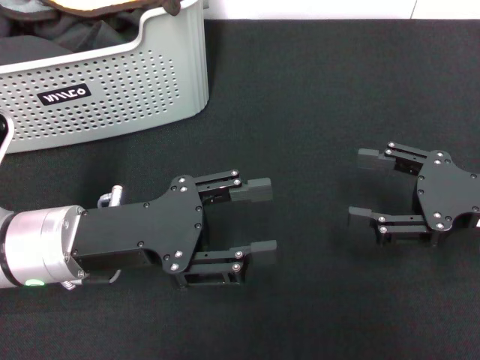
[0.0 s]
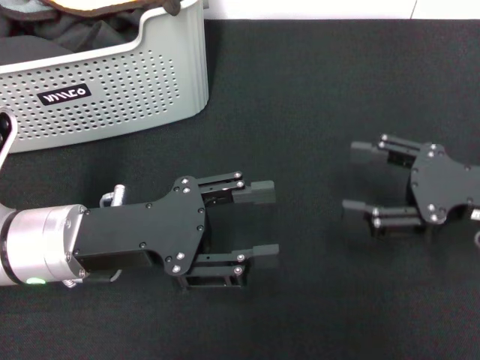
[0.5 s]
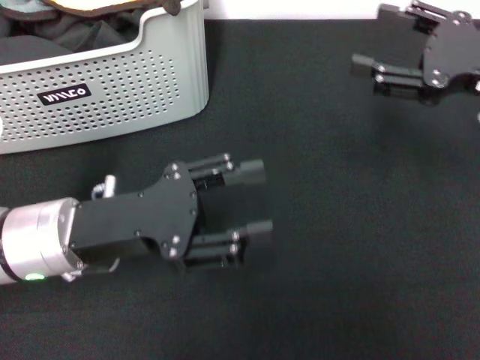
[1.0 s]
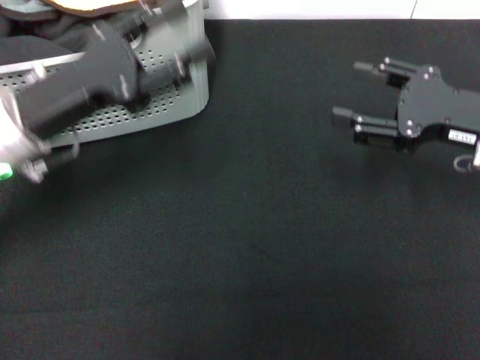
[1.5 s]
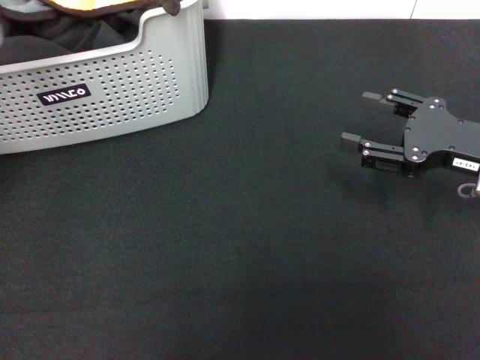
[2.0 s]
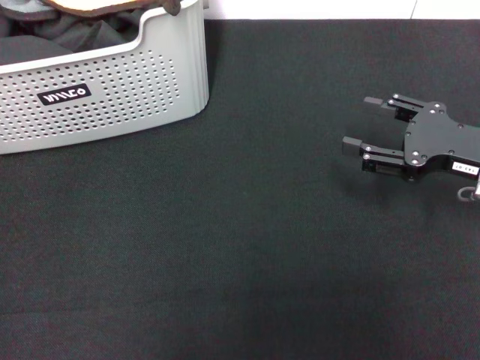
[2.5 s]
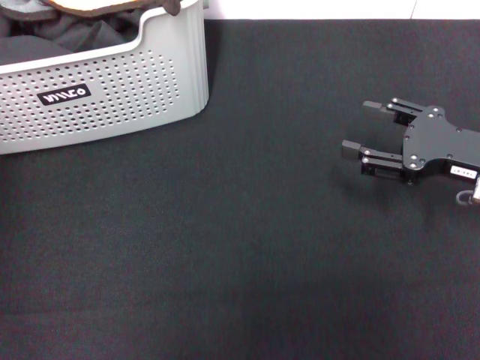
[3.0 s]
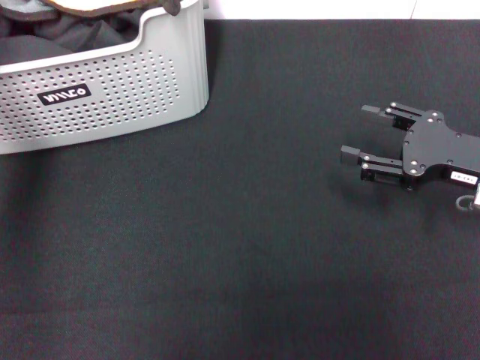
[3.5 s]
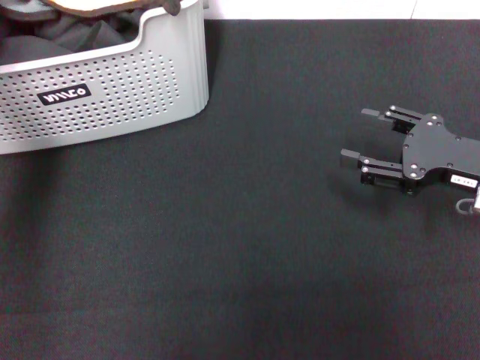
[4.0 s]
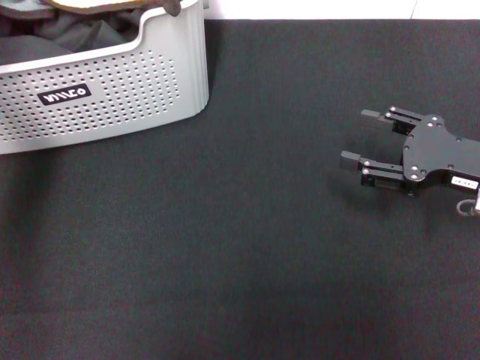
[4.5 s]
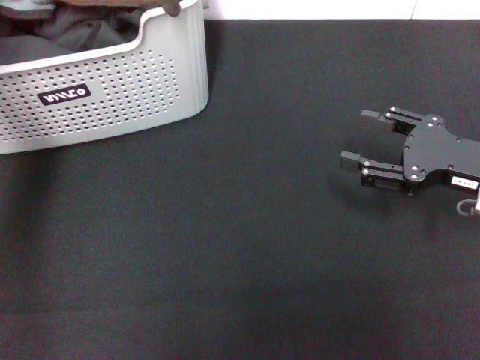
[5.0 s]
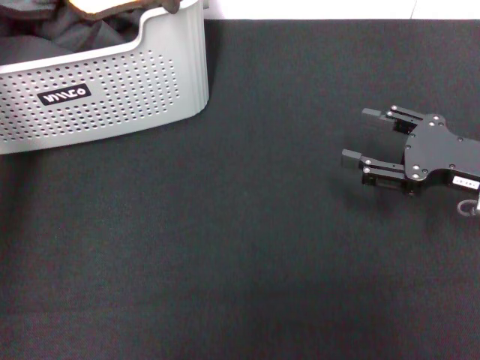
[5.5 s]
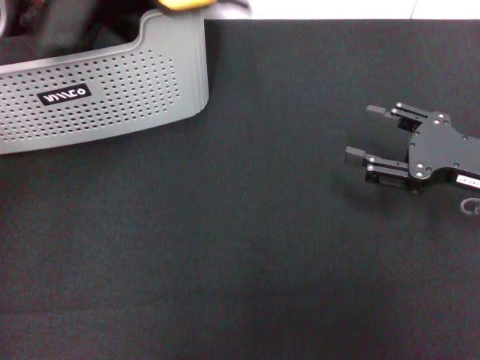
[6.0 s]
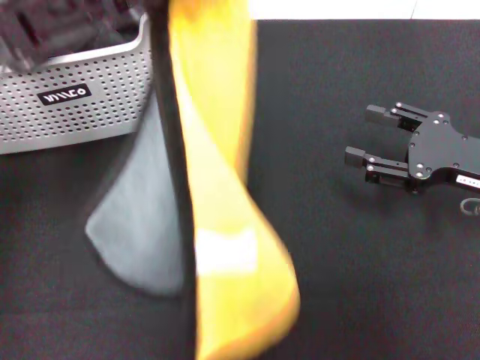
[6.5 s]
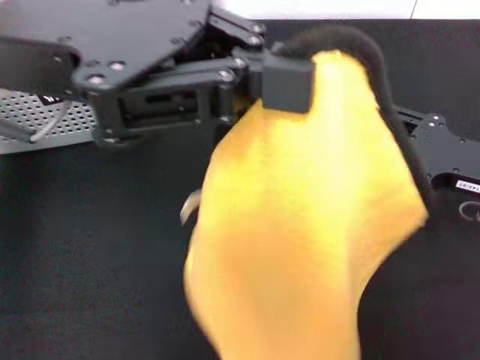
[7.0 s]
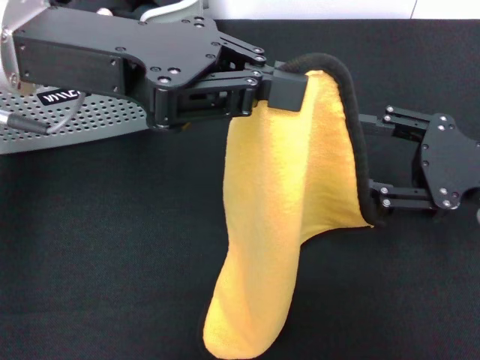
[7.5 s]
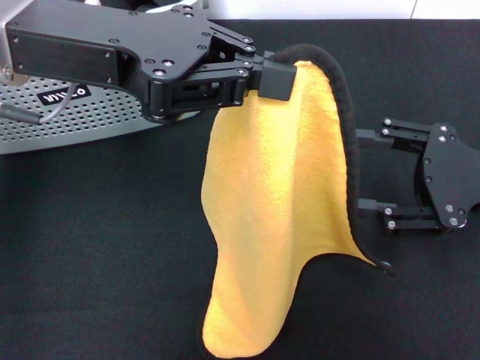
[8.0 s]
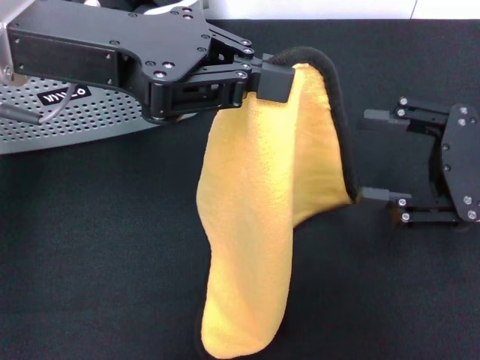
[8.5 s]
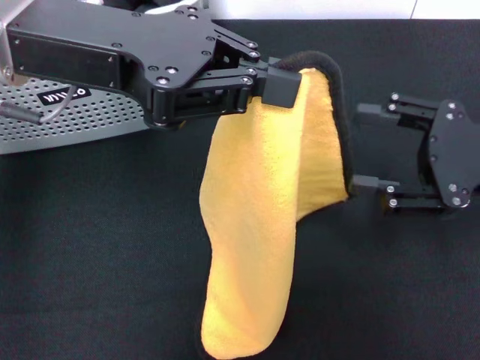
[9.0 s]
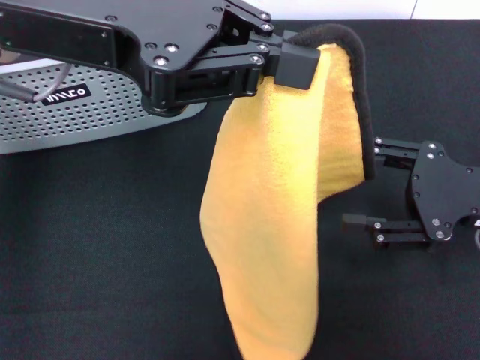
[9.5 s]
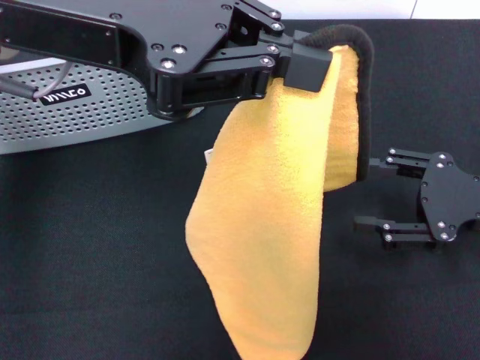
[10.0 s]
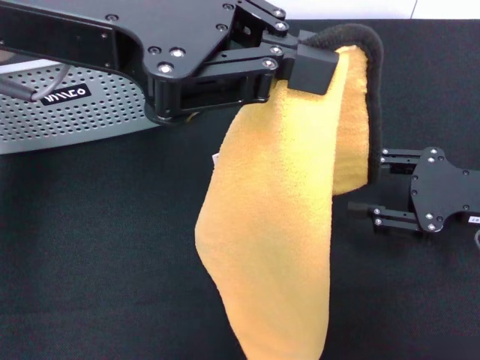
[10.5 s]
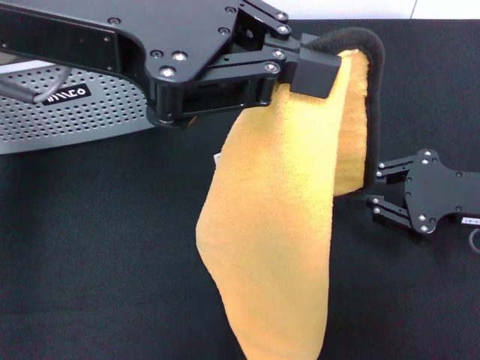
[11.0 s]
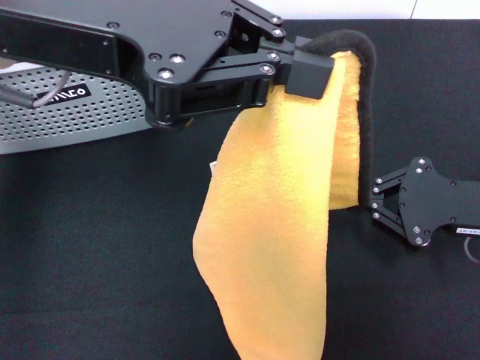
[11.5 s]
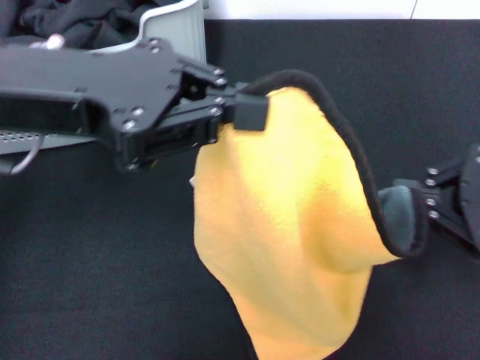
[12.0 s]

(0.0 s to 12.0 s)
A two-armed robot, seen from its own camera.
Task of the whole recording: pick up the towel from the storage box and lay it flat on the black tablecloth.
Step, 0.0 s - 4.5 s: Pick up a towel with the left gripper.
Step, 5.5 s - 11.5 s: Spread the towel flat with the left gripper.
0.0 s - 2.0 s: The left gripper goes approximately 15 cm upward, forward and to the left.
2.0 s - 4.0 s: The left gripper moves forward, about 5 cm.
4.0 s - 6.0 s: The left gripper heads backward, covering about 10 cm, and closes its fingers.
6.0 s - 8.0 s: The left gripper travels to the right by roughly 5 cm.
10.0 s - 12.0 s: The left gripper changes place by some 5 cm. Meanwhile the right gripper closes up.

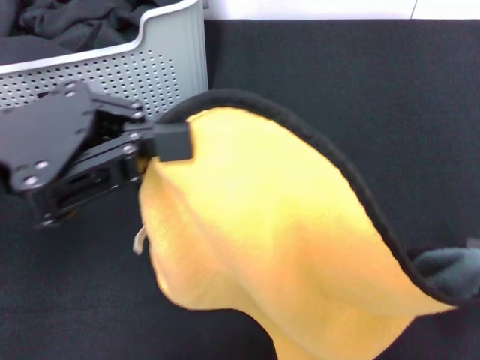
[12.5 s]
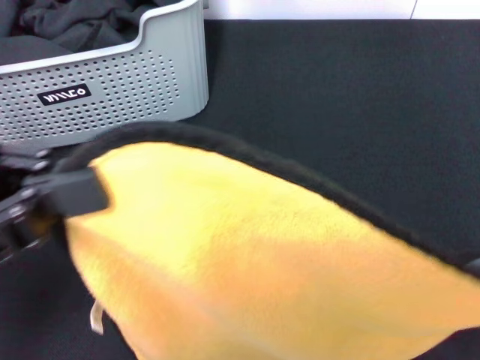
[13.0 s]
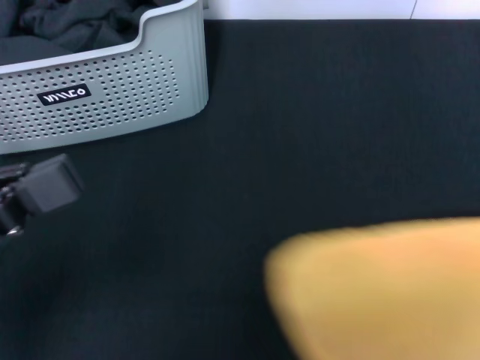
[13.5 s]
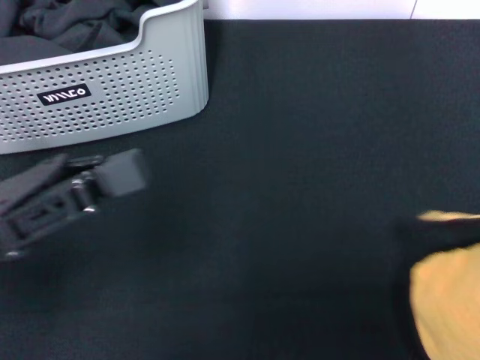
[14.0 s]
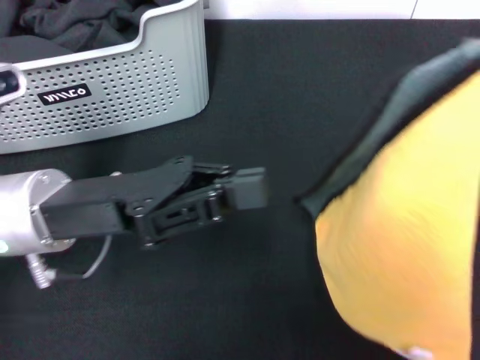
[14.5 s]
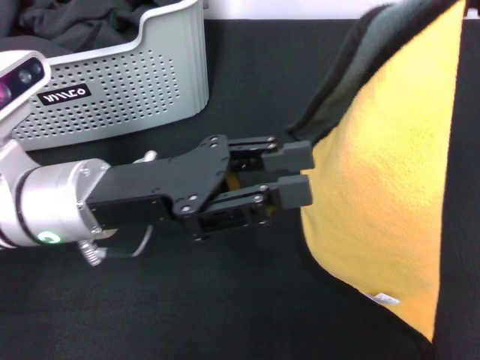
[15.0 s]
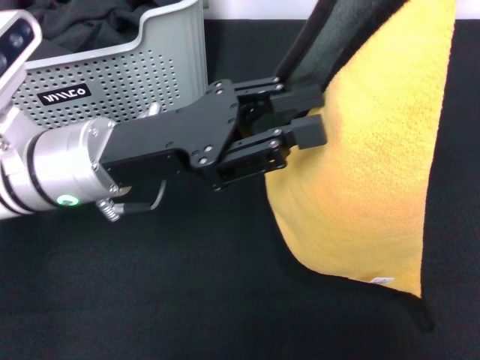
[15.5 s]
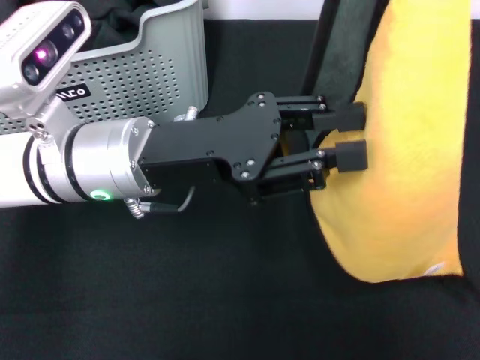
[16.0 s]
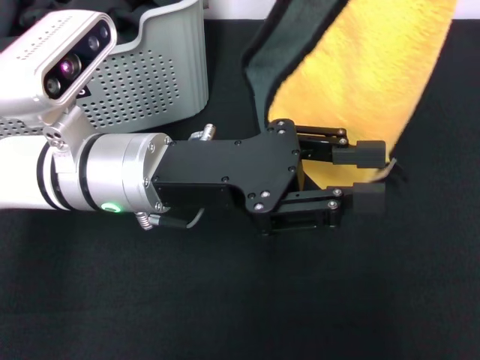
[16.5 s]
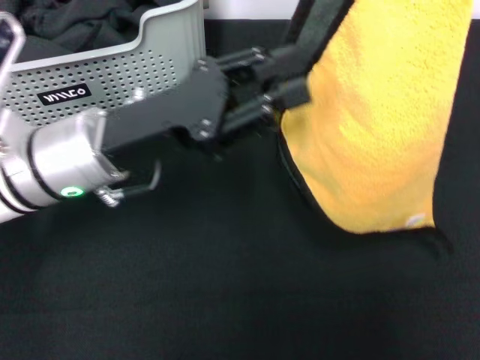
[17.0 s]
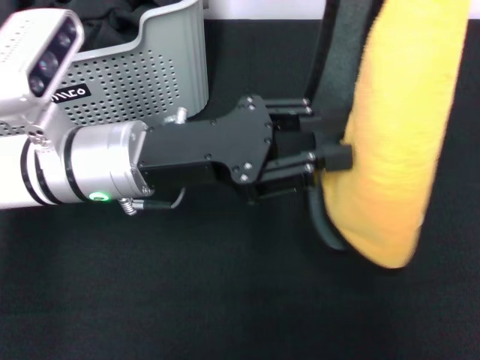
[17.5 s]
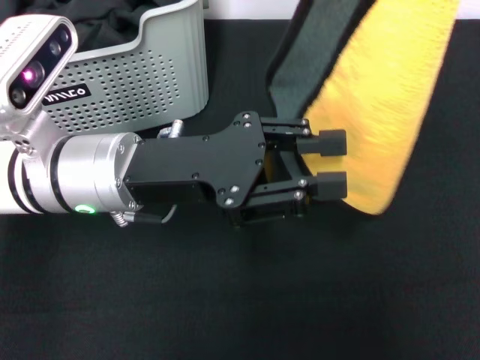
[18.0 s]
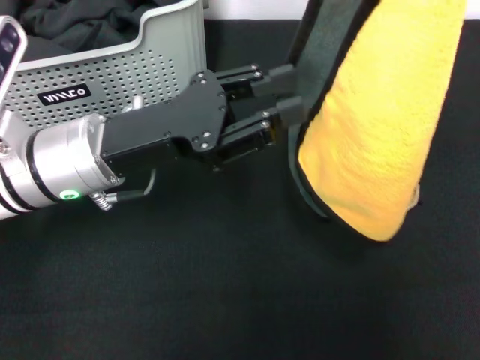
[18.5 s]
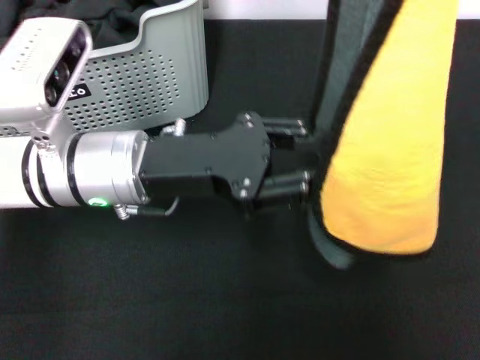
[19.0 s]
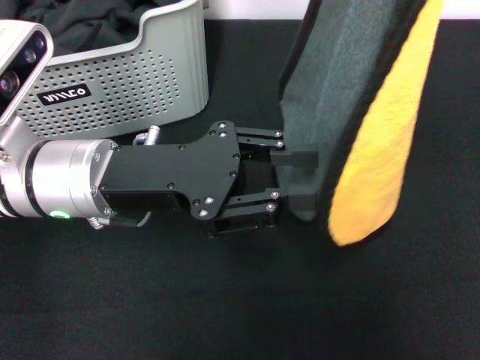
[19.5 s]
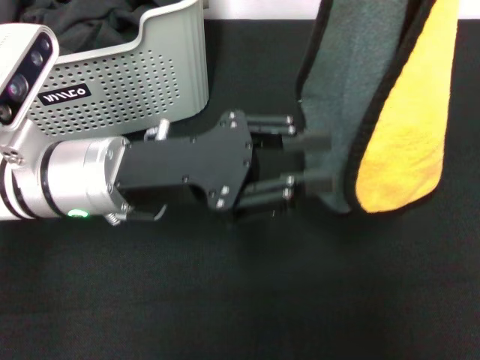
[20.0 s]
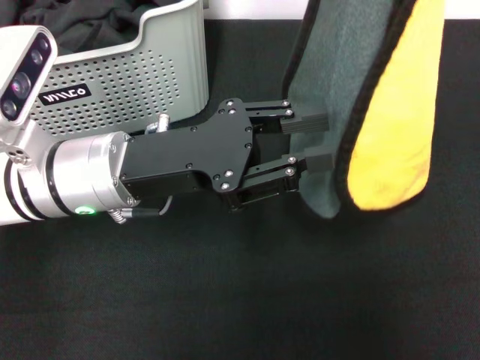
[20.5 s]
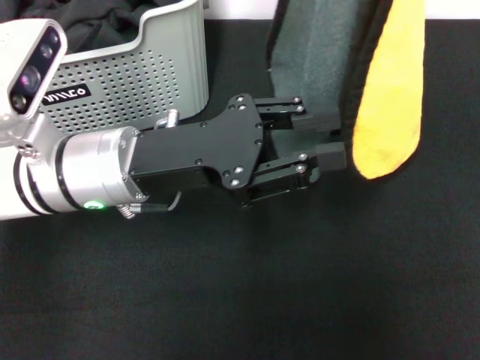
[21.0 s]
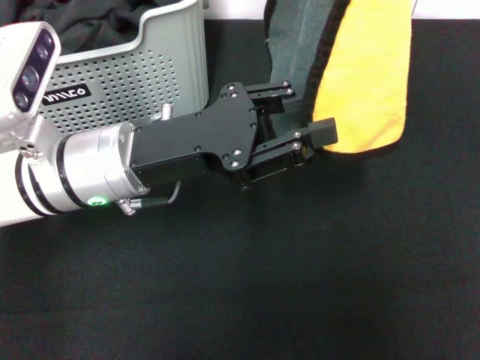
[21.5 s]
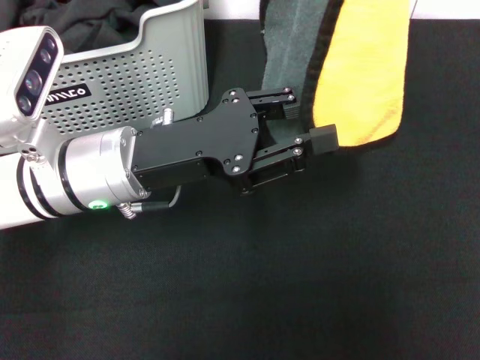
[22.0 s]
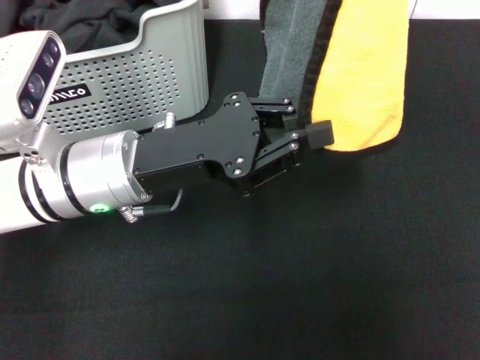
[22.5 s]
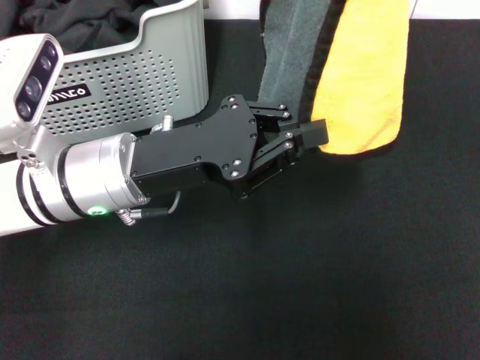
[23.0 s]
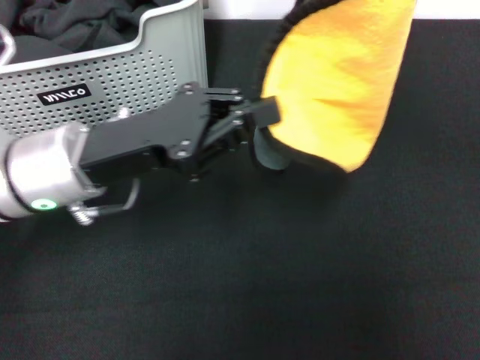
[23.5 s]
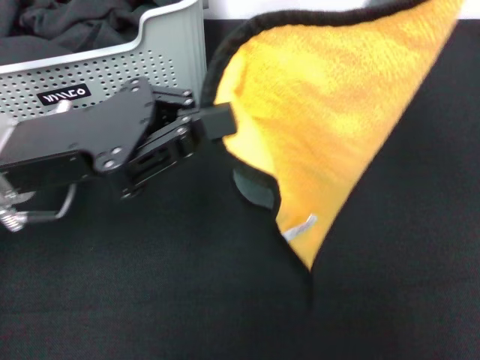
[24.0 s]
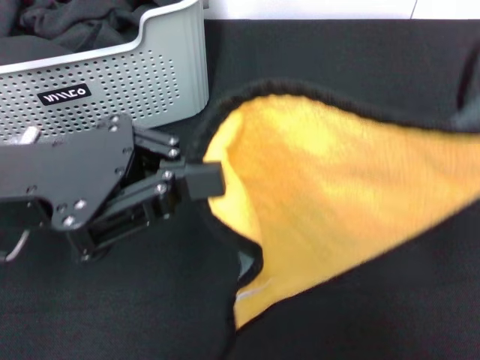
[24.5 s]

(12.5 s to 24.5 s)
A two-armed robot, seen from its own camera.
Task of the whole recording: pick up the towel from the storage box and lay it flat on the black tablecloth.
12.5 s - 14.5 s: The right gripper moves forward and upward, roughly 15 cm. The left gripper goes approximately 10 cm downward.
14.5 s - 16.5 s: The left gripper moves to the right, approximately 5 cm, and opens up. The right gripper travels upward by roughly 10 cm.
22.5 s - 24.5 s: The right gripper goes approximately 20 cm backward, downward and to the right. The left gripper travels upward, to the left and backward by roughly 15 cm, and closes up.

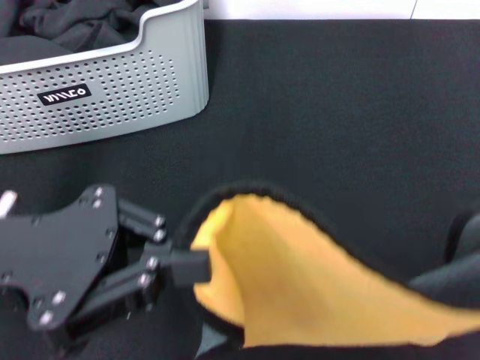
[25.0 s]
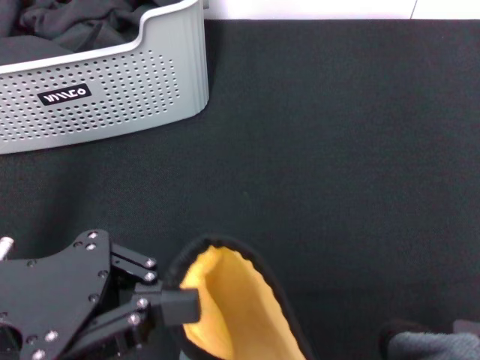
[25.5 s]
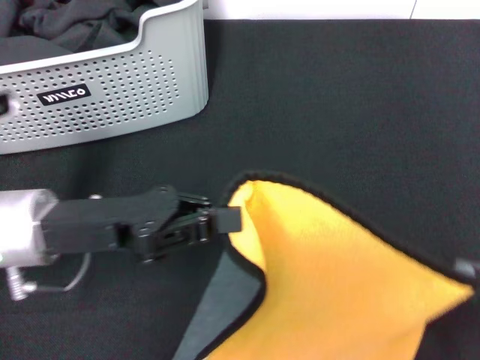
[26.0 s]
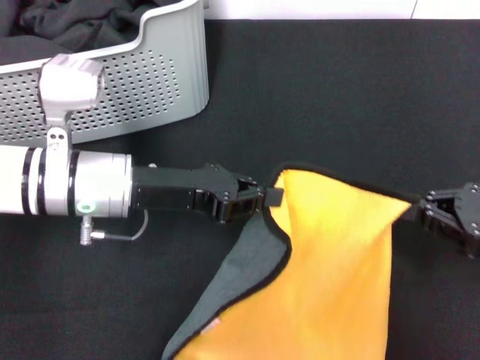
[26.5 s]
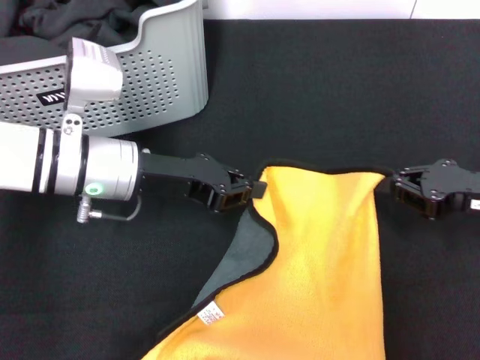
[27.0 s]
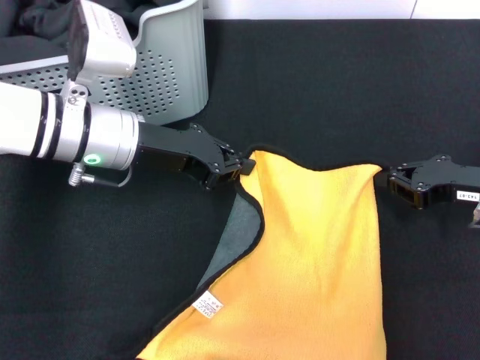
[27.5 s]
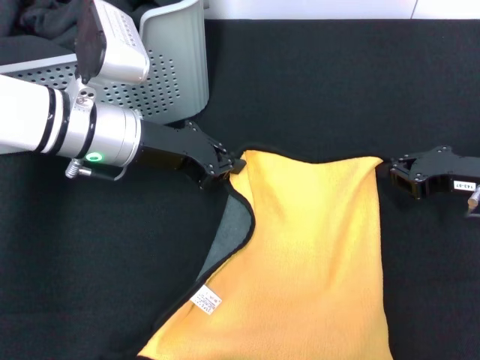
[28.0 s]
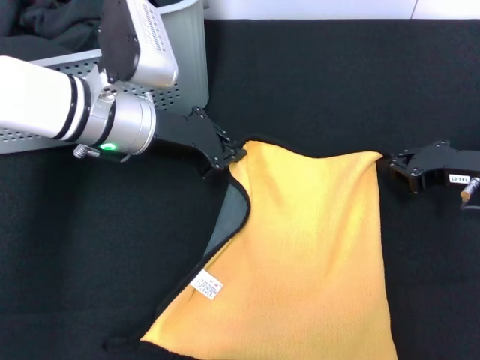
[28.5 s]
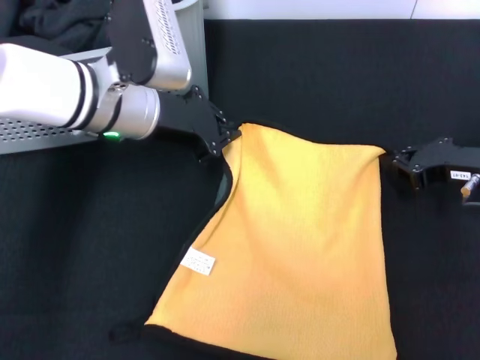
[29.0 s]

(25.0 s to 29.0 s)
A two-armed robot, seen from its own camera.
Task of the whole recording: pick up the towel from the storage box and lay it flat on the black tablecloth.
25.0 s - 27.0 s: The left gripper travels forward, downward and to the right by about 20 cm; the right gripper heads downward and forward, covering some 25 cm.
27.0 s - 29.0 s: The right gripper moves some 5 cm, while the left gripper changes place by some 5 cm.
